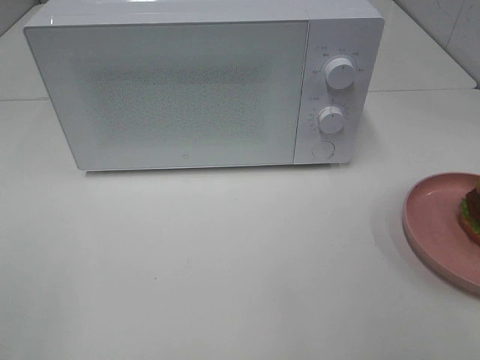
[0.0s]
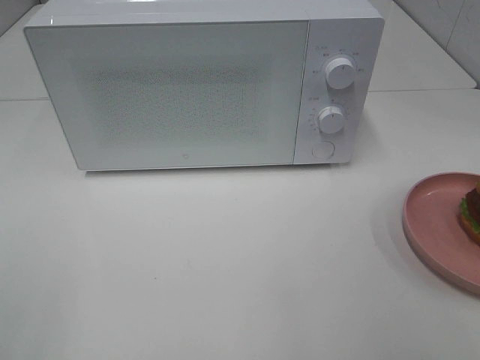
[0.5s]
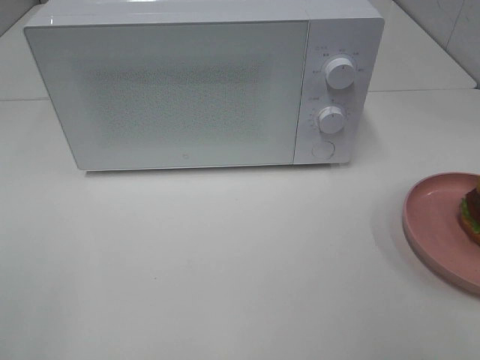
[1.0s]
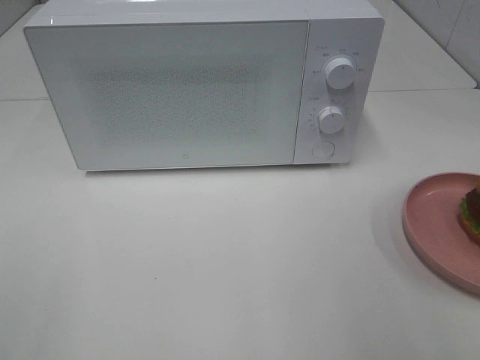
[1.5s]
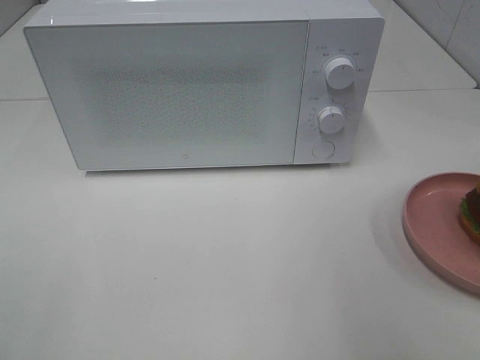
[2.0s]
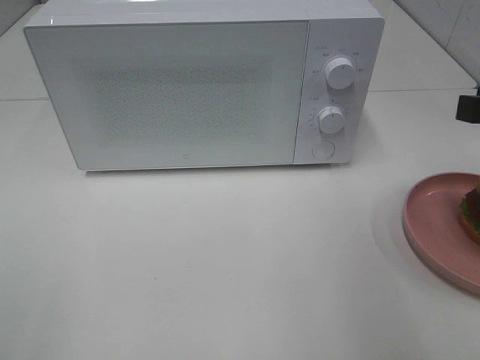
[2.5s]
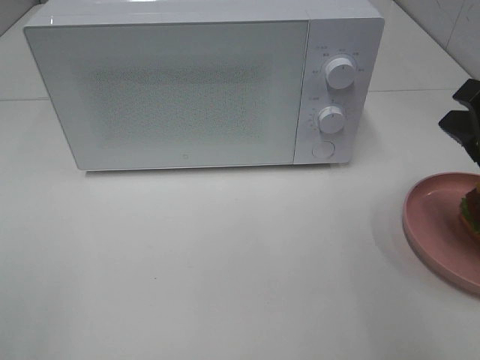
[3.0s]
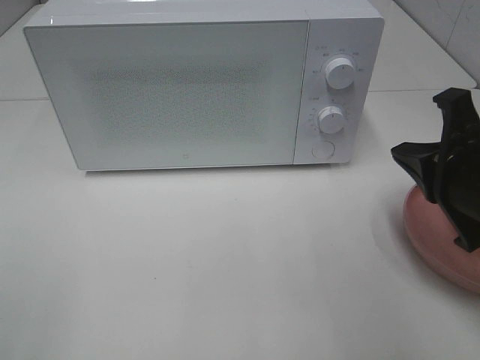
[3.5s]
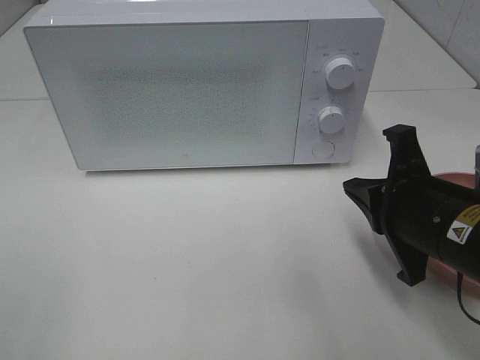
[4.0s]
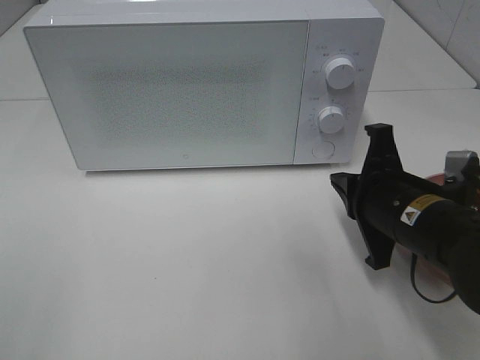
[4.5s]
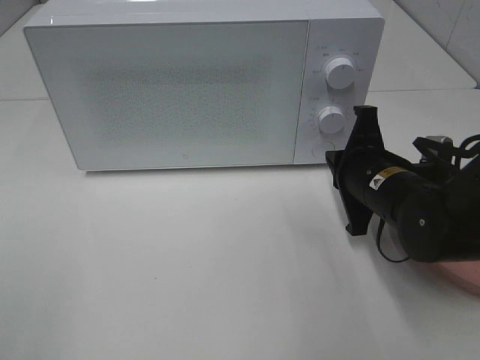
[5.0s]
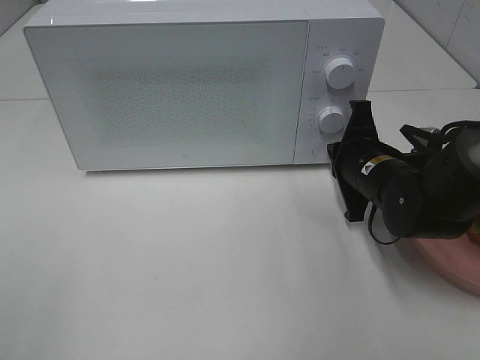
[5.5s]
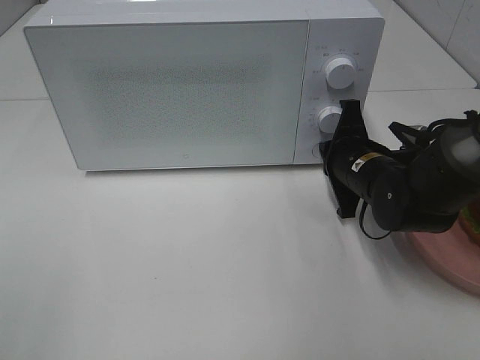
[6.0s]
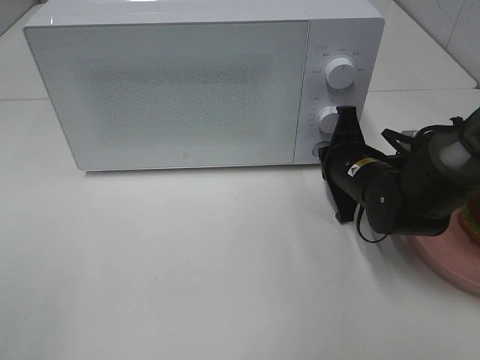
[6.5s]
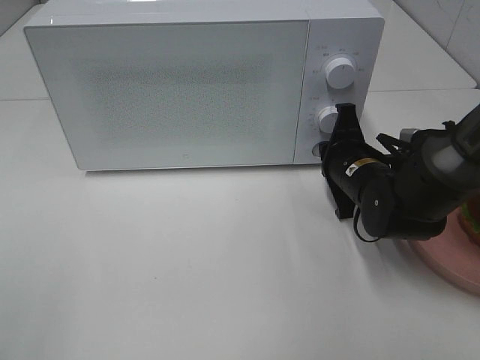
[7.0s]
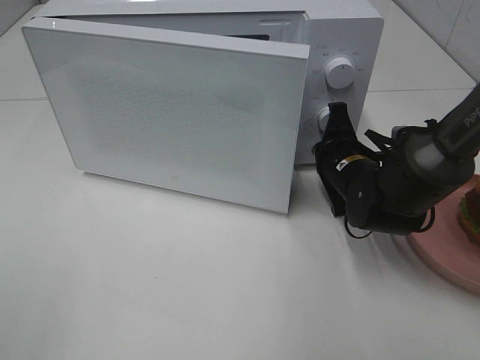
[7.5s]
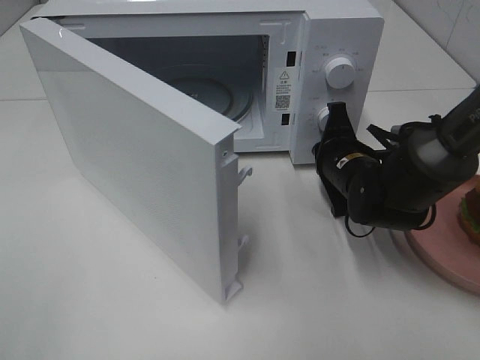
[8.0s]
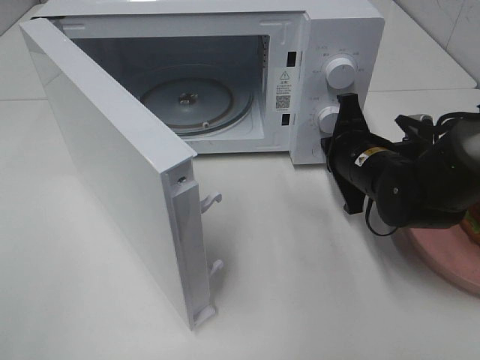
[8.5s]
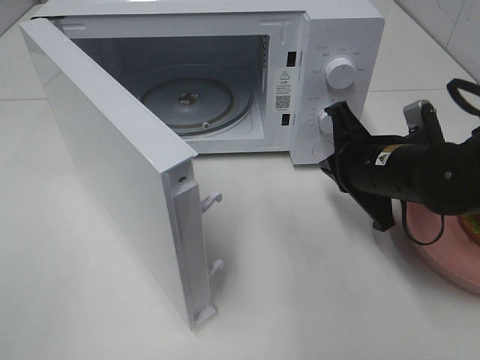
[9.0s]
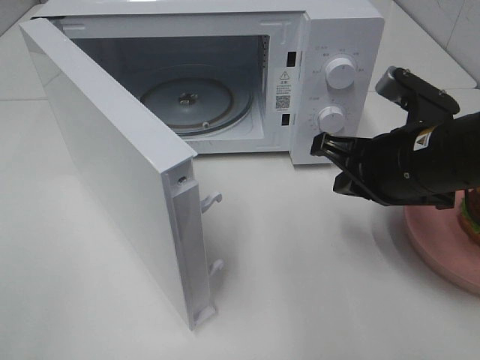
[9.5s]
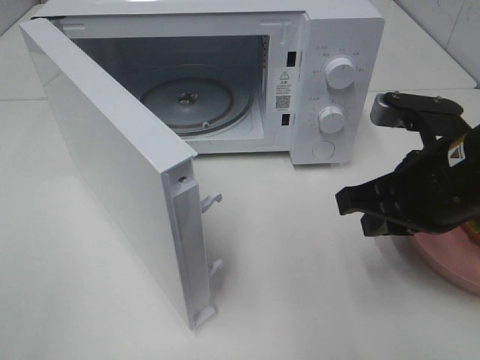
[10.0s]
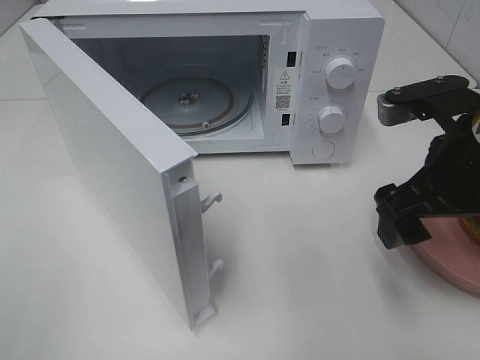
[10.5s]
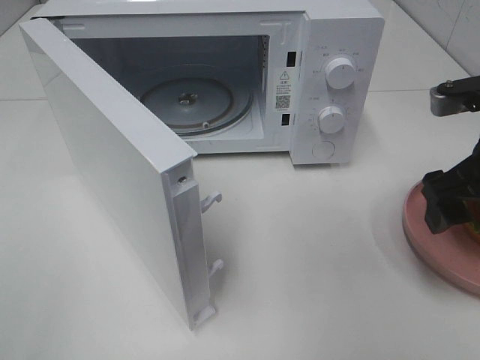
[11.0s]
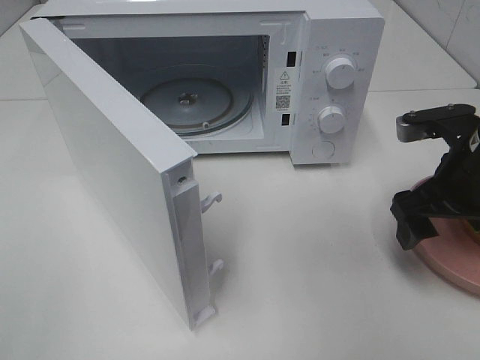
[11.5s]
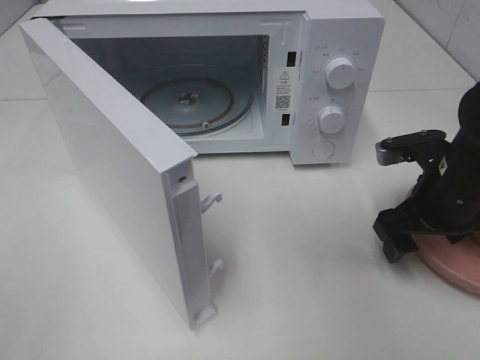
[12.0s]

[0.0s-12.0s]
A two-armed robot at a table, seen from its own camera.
Task of the whole recording: Heat the burger.
Step, 0.0s to 8.5s: Right hand: press the switch.
2.0s to 4.0s: The right gripper shifts approximately 20 cm downward and to the left, and closes.
4.0s to 6.0s: The right gripper heads forward and downward, covering roughly 15 cm.
8.0s to 10.0s: The right gripper heads backward and upward, covering some 15 cm.
10.0s to 12.0s: The right gripper heads downward and forward, covering some 10 cm, and opens.

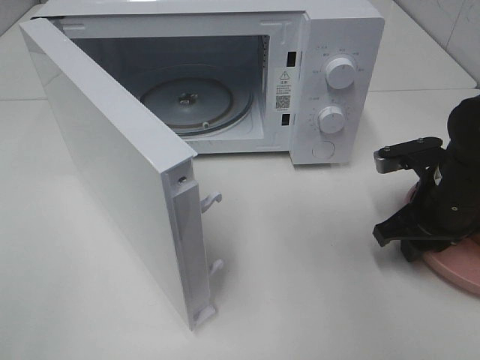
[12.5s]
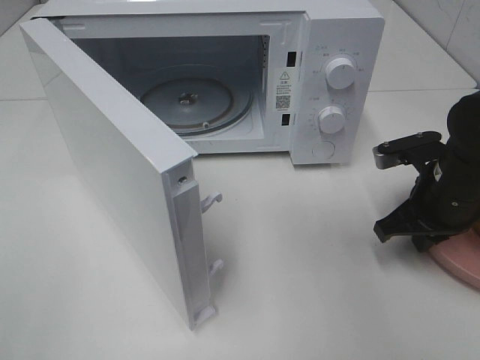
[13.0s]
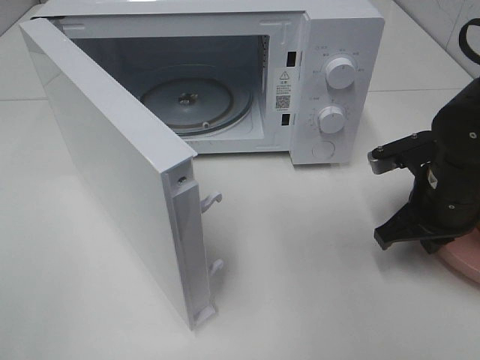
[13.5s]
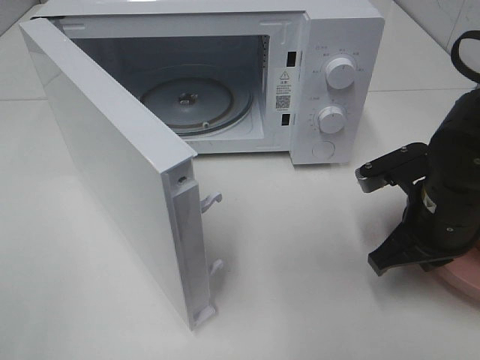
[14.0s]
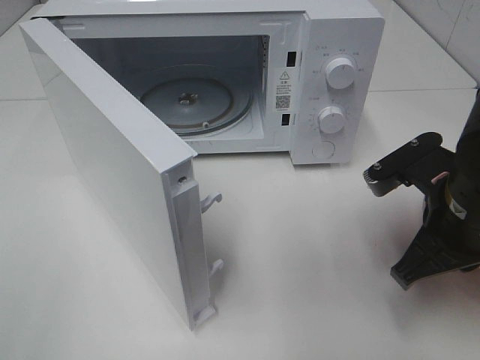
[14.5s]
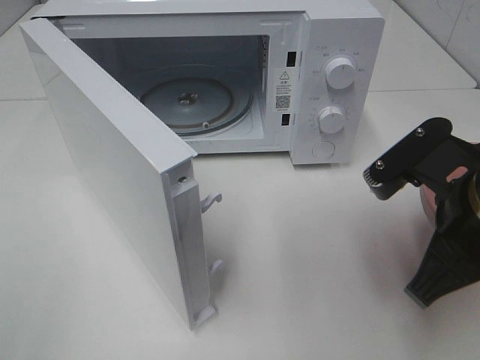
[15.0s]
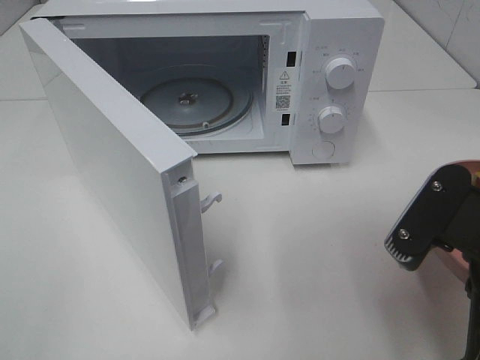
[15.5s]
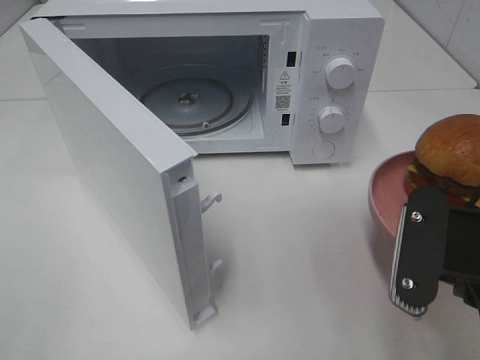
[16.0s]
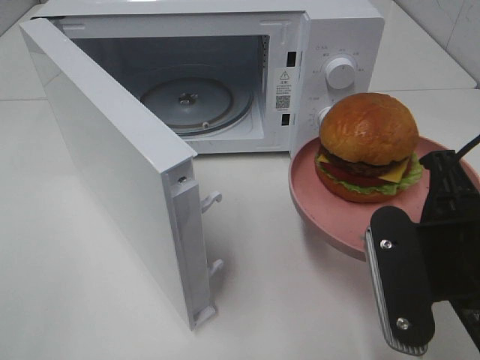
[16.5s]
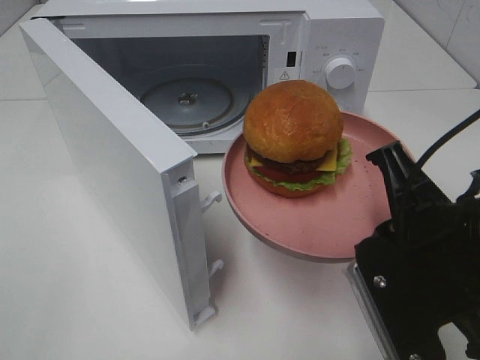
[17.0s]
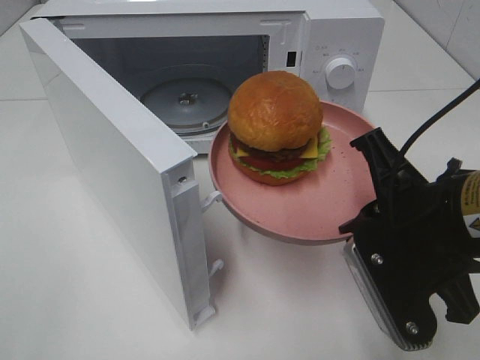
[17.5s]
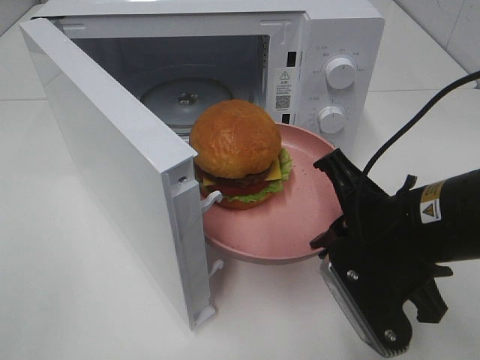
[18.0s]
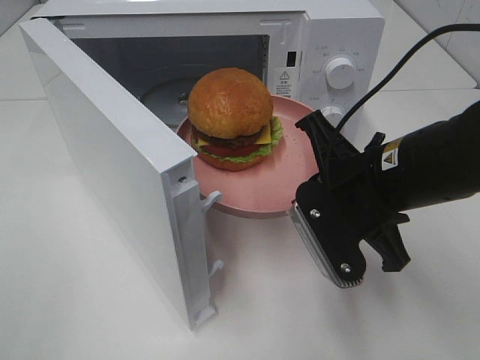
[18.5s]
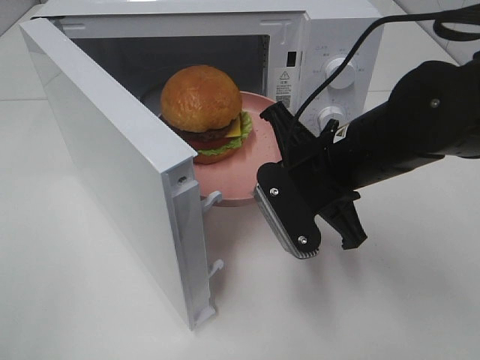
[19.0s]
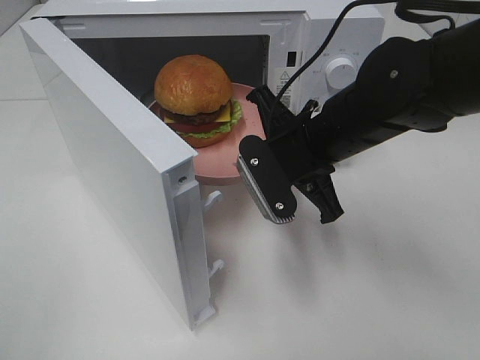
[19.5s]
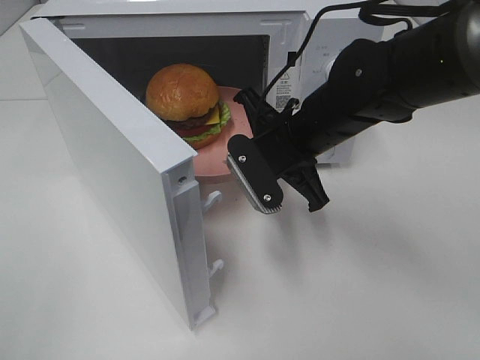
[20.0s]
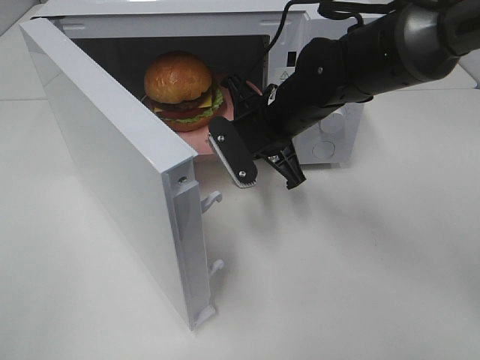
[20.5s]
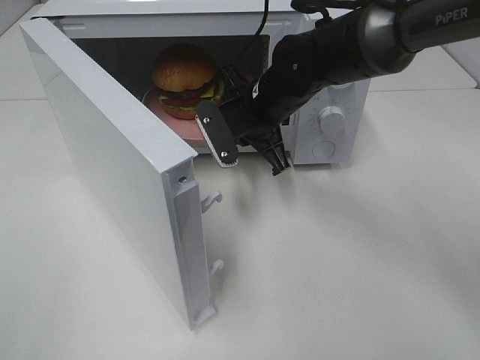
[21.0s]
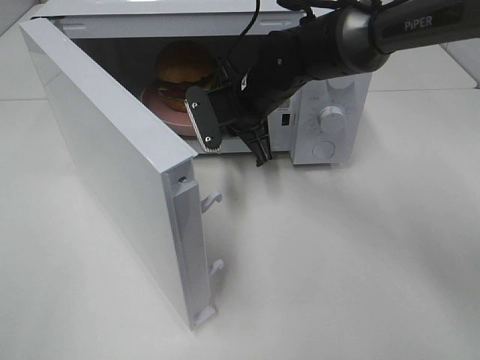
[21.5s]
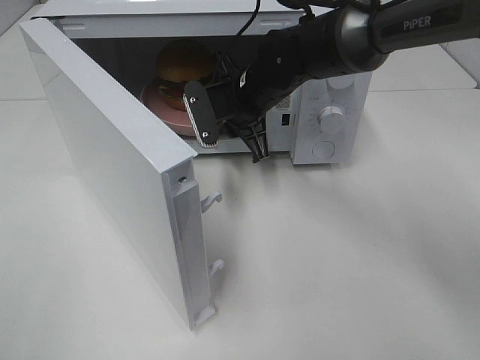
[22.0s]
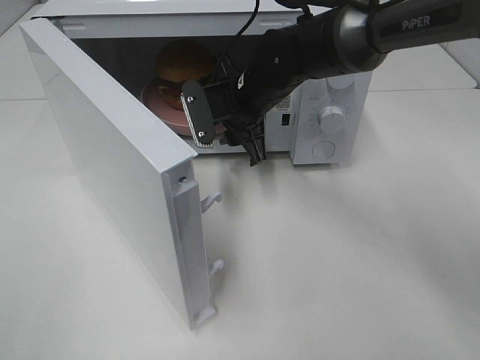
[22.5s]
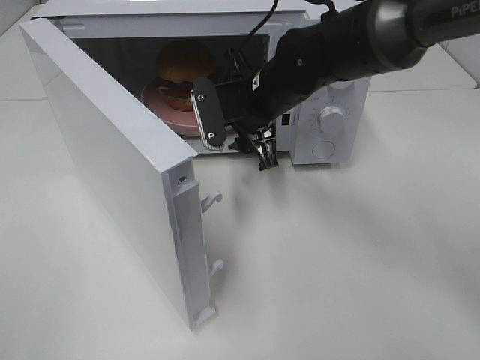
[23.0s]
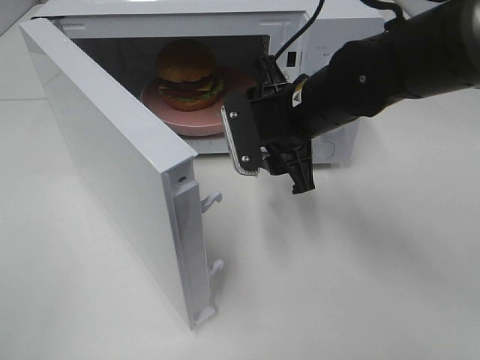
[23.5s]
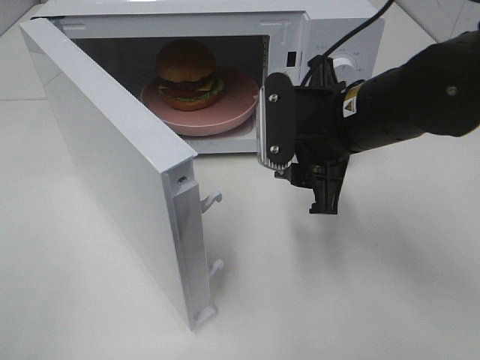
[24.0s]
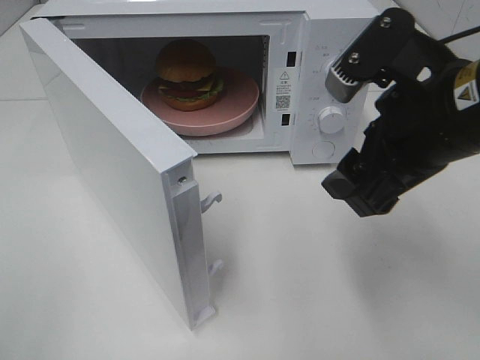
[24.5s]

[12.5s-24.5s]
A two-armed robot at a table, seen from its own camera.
Task of the whole recording: Heat the burger.
Step, 13.5s to 21.5s: Right hand: place the plate in the microwave.
12.5s to 14.5s: The right gripper travels backward and upward by roughly 10 cm, and closes up.
14.5s to 16.5s: The right gripper travels backward by approximately 10 cm.
16.5s to 18.5s: The right gripper moves forward, approximately 10 cm.
18.5s to 20.5s: The right gripper moves forward and to the left, some 15 cm.
20.5s to 22.5s: The right gripper moves some 5 cm, and opens up.
22.5s to 24.5s: The right gripper shifts approximately 25 cm backward, to the right and upward.

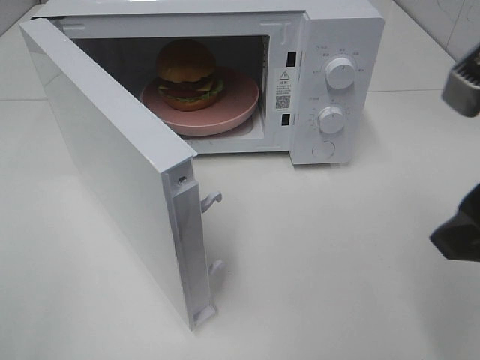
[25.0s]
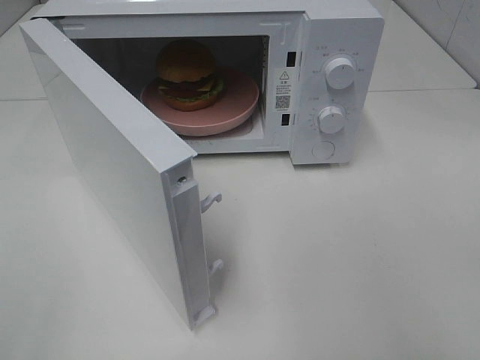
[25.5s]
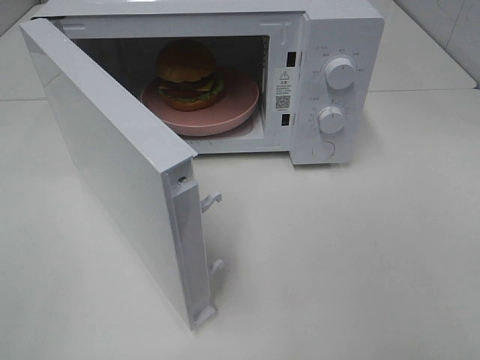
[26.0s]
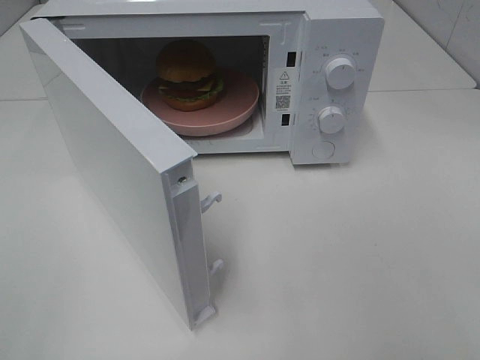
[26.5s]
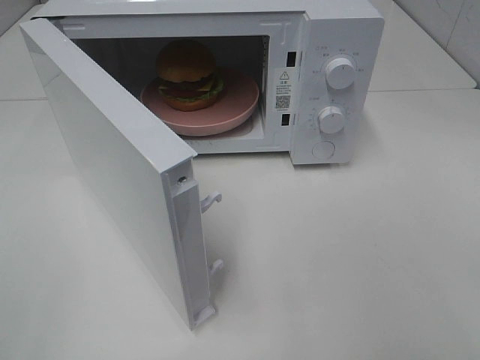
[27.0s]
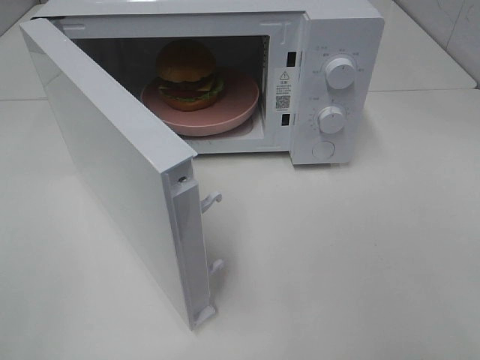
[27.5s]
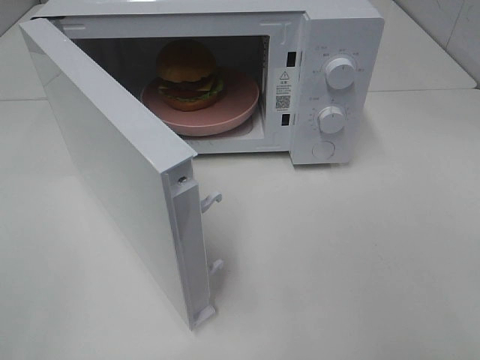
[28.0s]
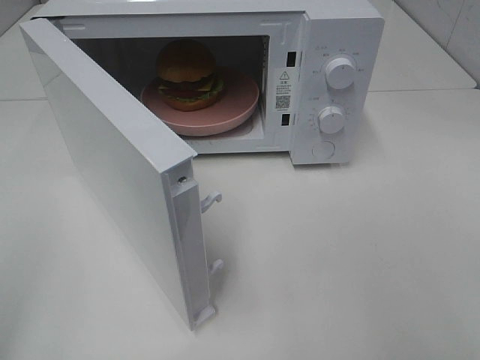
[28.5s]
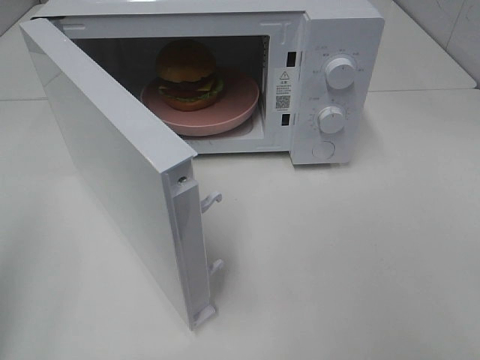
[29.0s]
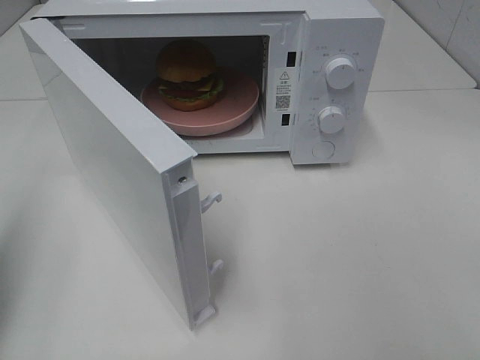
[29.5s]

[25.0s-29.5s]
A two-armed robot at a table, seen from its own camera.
Task of the whole recording: Heat the burger.
25.0s to 27.0s: The right gripper shifts about 15 cm backward and to the right.
27.0s to 29.5s: The left gripper goes roughly 15 cm forward, and closes its fingers.
